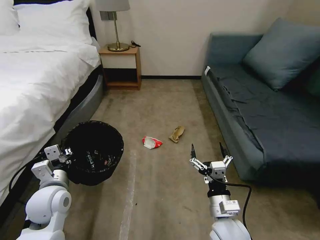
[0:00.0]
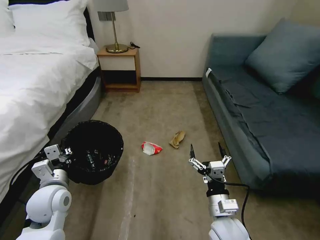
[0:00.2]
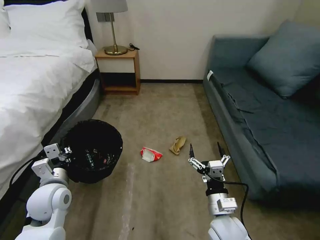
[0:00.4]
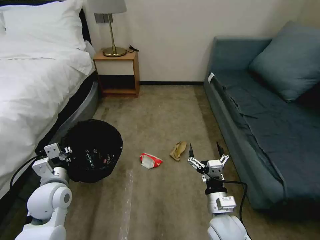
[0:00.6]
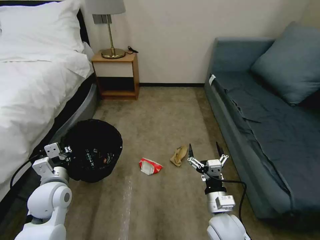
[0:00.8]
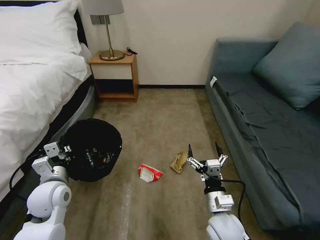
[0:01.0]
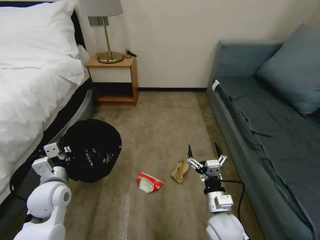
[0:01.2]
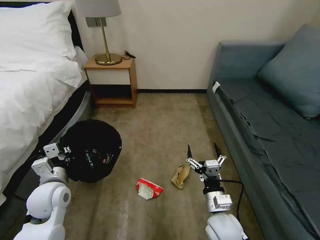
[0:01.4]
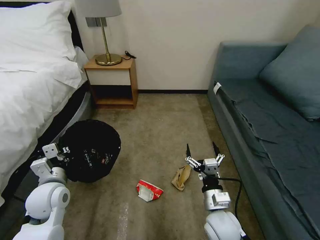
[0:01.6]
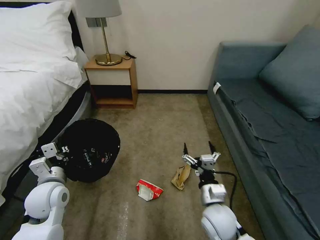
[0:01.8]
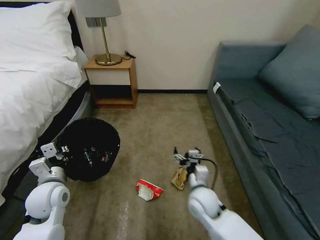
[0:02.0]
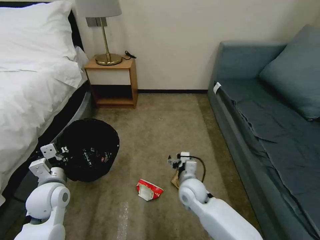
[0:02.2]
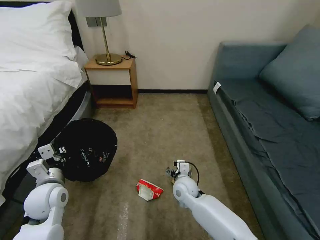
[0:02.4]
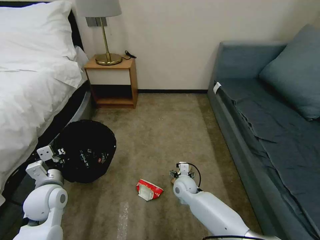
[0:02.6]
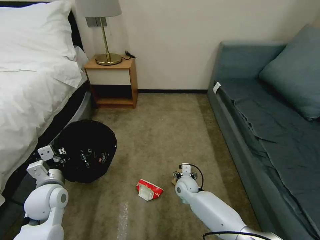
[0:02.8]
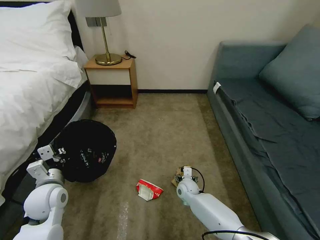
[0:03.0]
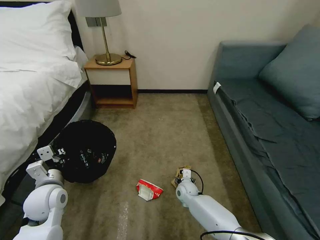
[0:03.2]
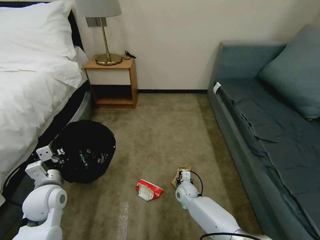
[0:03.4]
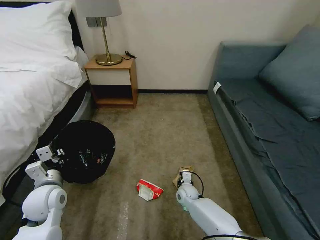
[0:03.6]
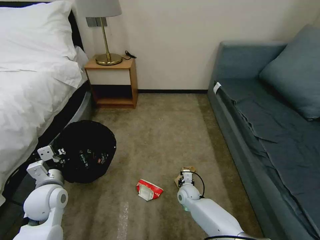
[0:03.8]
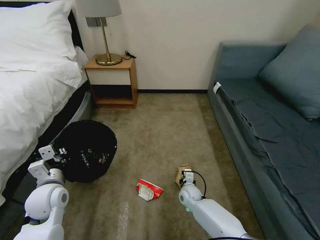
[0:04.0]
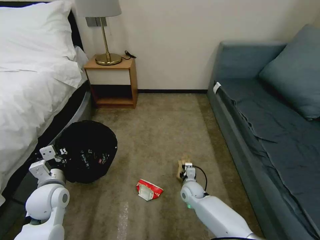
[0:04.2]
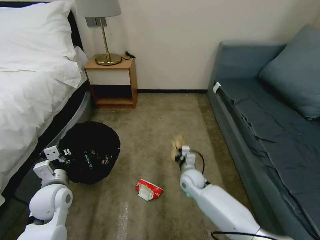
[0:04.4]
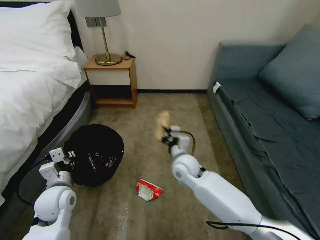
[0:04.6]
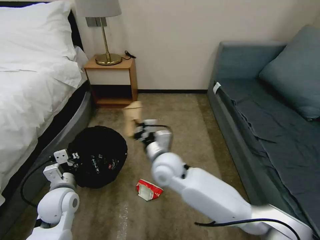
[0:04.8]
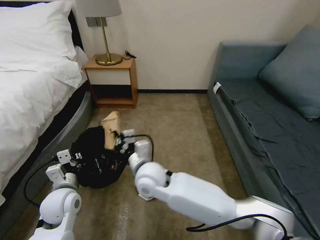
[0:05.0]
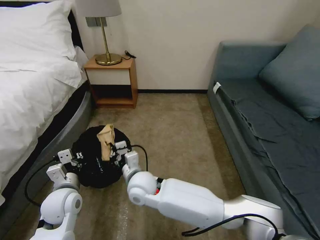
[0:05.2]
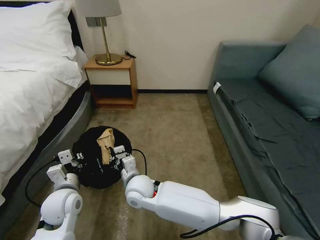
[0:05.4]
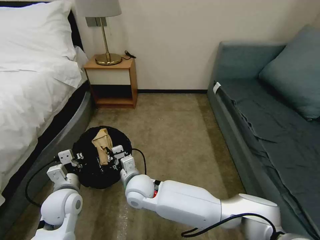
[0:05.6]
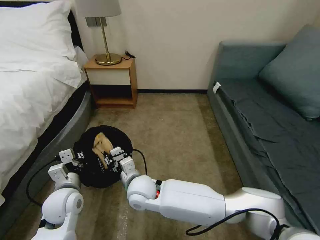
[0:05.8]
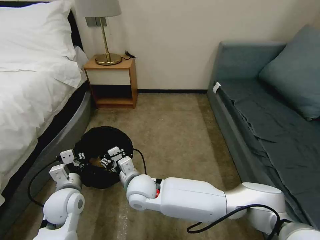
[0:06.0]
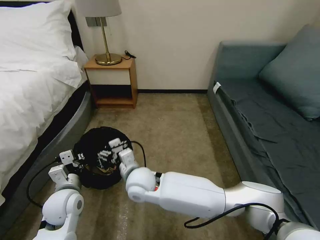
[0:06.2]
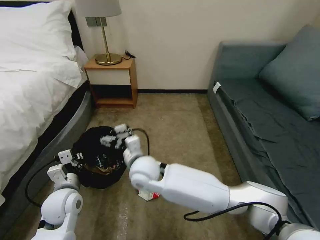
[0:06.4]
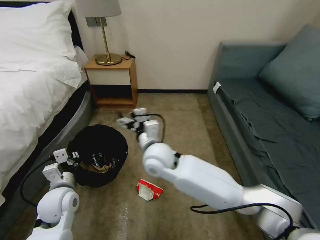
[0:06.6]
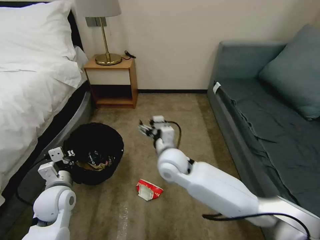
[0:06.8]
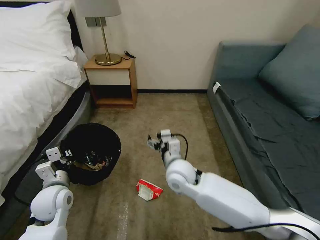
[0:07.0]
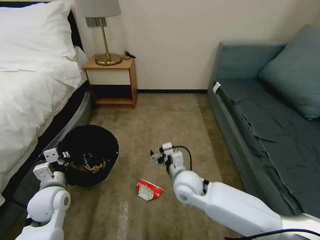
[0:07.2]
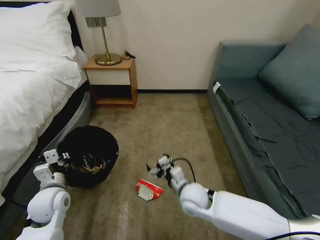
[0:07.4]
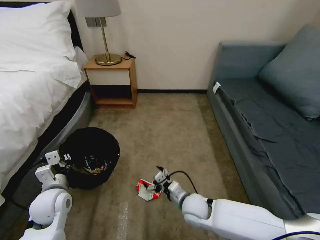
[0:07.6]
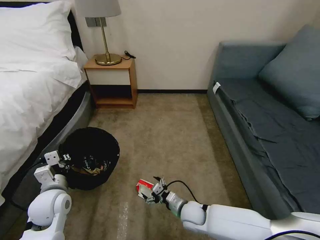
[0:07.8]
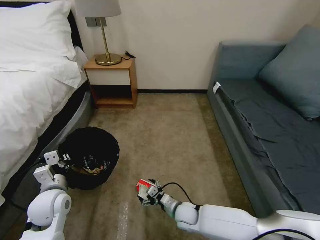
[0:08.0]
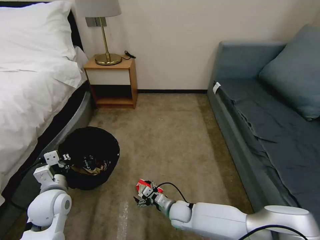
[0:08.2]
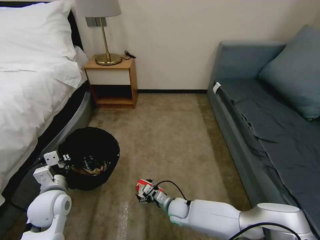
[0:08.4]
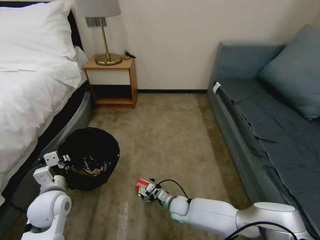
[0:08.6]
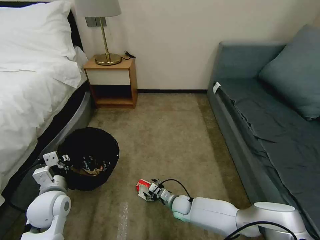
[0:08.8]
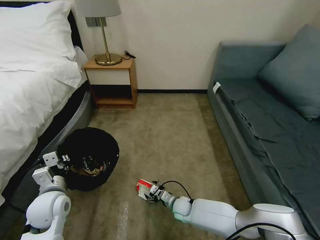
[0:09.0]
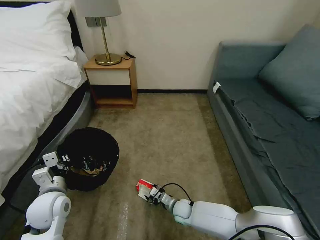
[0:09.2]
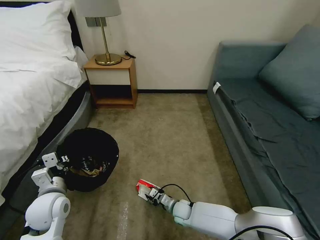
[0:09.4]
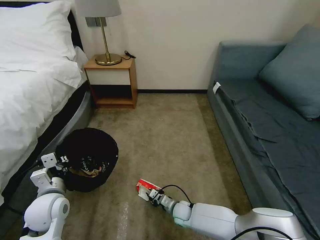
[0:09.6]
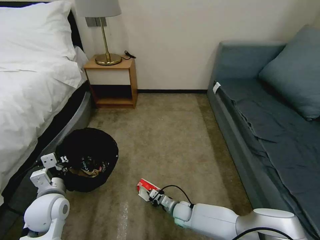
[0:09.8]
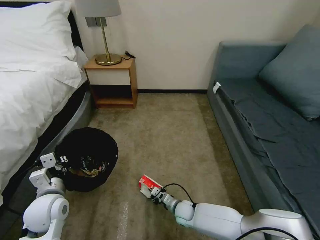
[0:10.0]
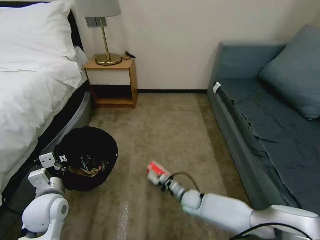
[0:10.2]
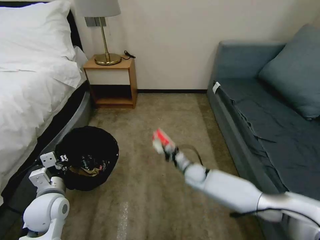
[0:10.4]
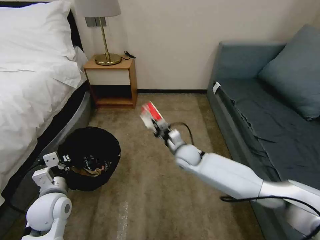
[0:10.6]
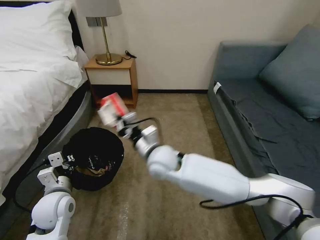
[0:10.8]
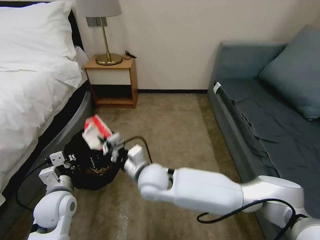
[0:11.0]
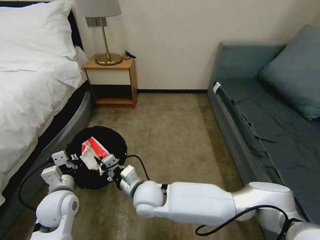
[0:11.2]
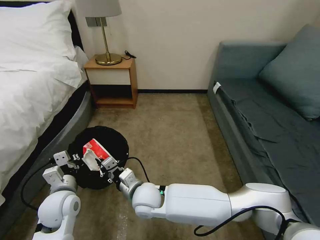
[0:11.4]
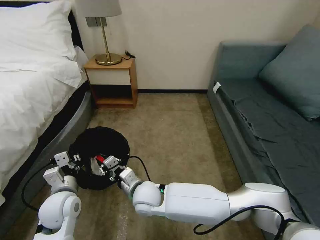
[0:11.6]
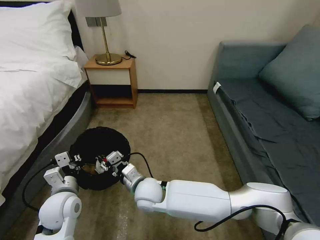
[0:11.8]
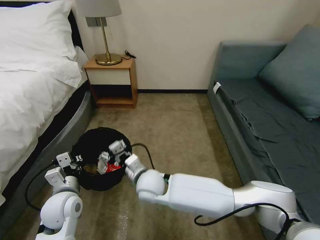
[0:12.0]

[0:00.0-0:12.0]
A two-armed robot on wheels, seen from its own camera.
Task of the whole recording: Pick up the trash bin, then pick up the garbage on the floor and place it into the trash bin.
0:01.6 to 0:03.0: The right gripper goes approximately 25 cm forward and downward.
0:03.0 to 0:04.4: The right gripper moves upward, about 10 cm, and closes up.
0:04.4 to 0:06.0: The right gripper moves to the left, upward and backward, some 25 cm, and opens.
0:06.0 to 0:07.6: The right gripper goes some 20 cm to the right and downward.
0:07.6 to 0:09.0: The right gripper moves downward, some 15 cm.
0:09.0 to 0:10.4: The right gripper travels upward and forward by approximately 15 cm, and closes its fingers.
0:10.4 to 0:12.0: The right gripper goes about 25 cm to the left, backward and upward, and opens up.

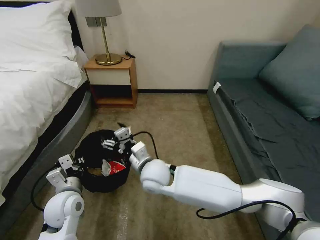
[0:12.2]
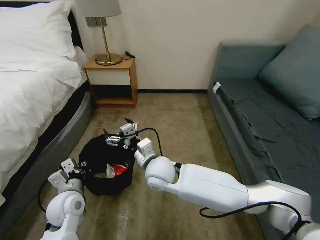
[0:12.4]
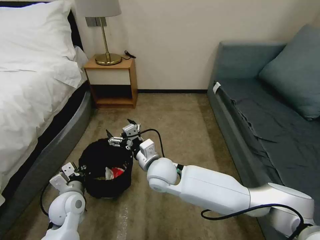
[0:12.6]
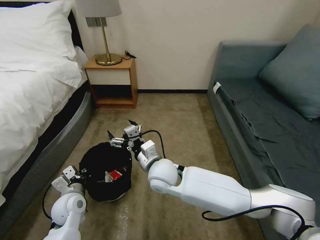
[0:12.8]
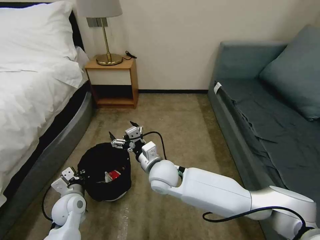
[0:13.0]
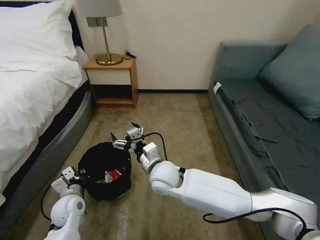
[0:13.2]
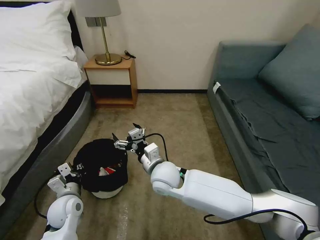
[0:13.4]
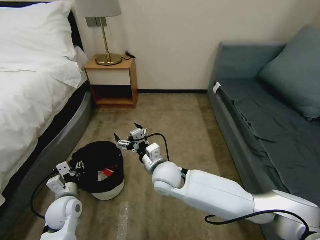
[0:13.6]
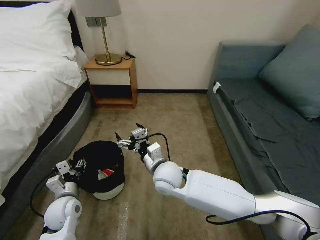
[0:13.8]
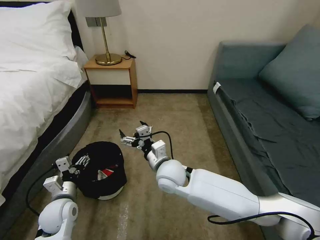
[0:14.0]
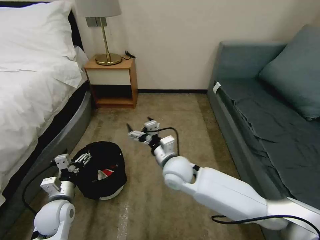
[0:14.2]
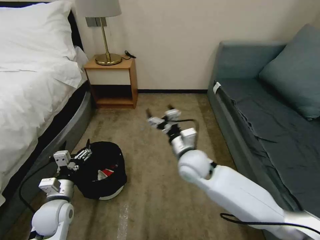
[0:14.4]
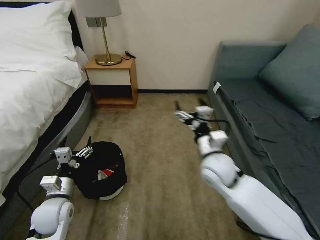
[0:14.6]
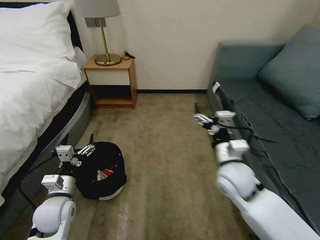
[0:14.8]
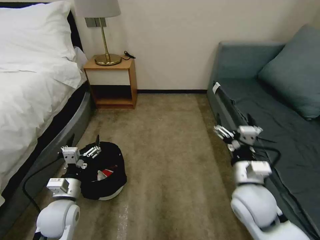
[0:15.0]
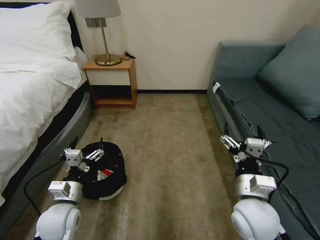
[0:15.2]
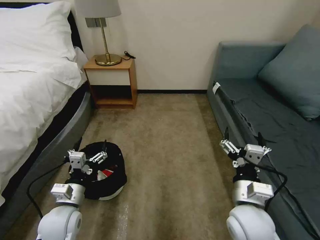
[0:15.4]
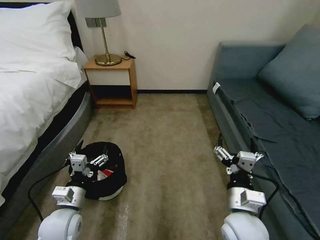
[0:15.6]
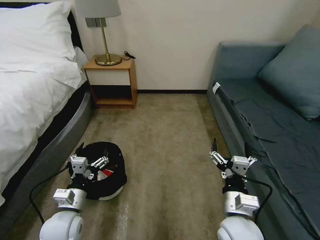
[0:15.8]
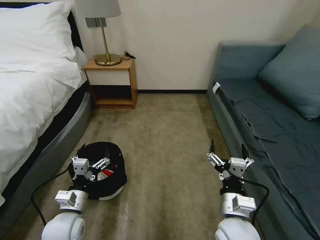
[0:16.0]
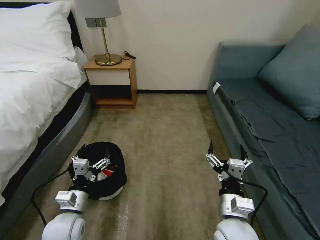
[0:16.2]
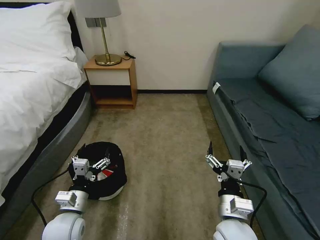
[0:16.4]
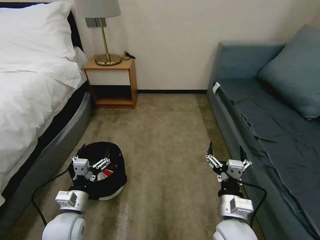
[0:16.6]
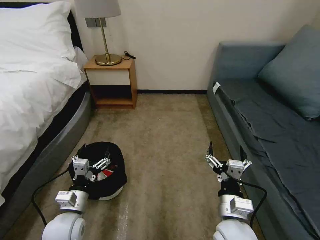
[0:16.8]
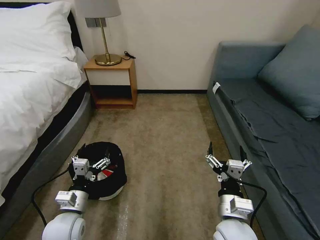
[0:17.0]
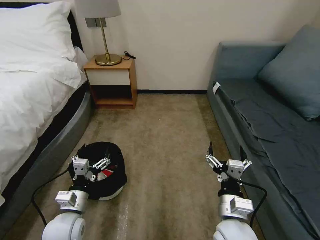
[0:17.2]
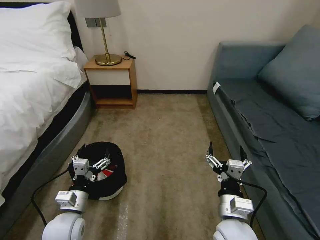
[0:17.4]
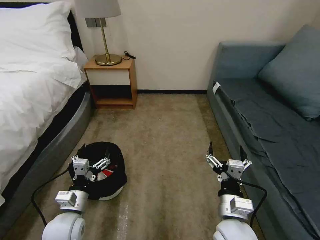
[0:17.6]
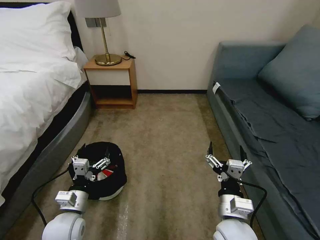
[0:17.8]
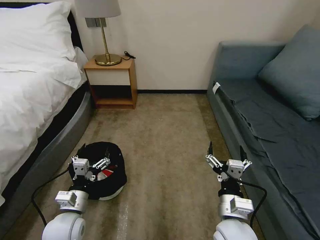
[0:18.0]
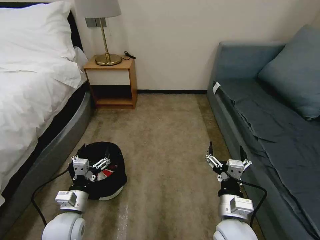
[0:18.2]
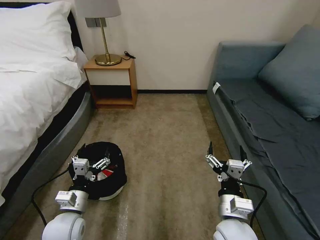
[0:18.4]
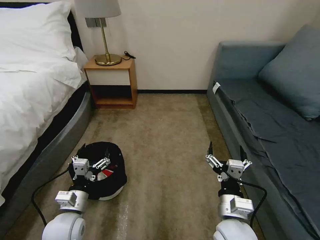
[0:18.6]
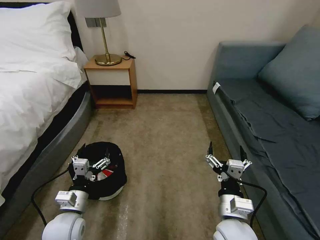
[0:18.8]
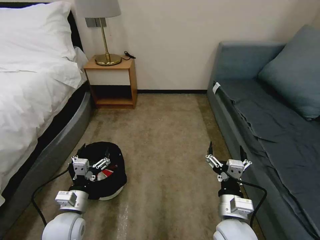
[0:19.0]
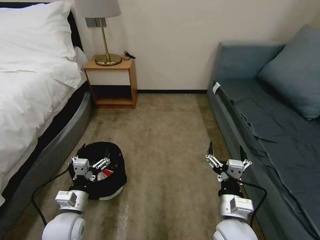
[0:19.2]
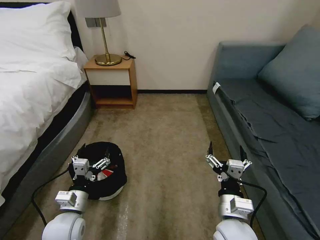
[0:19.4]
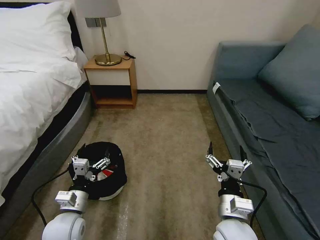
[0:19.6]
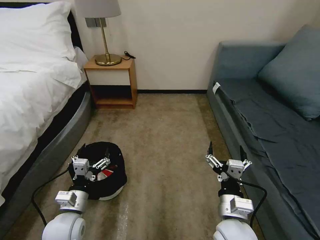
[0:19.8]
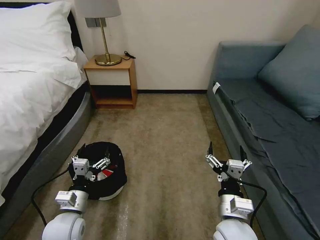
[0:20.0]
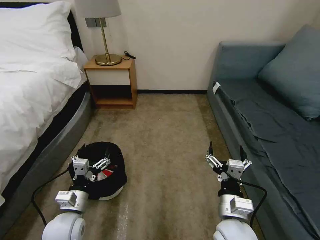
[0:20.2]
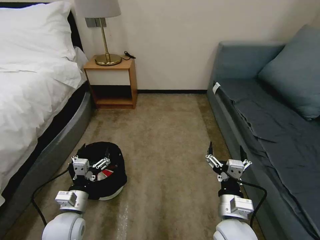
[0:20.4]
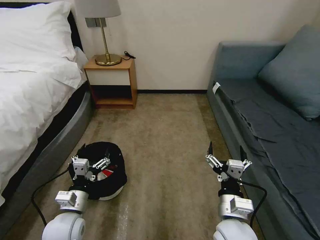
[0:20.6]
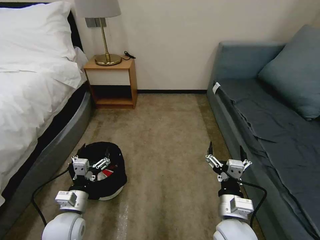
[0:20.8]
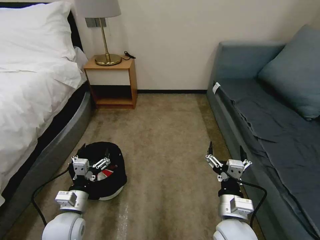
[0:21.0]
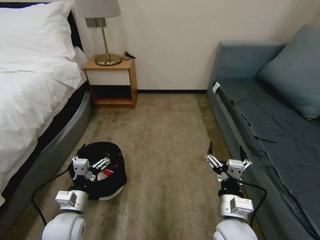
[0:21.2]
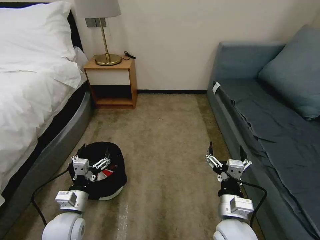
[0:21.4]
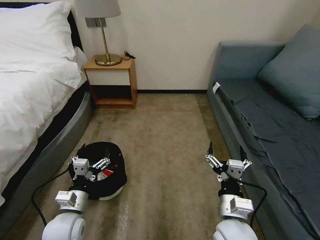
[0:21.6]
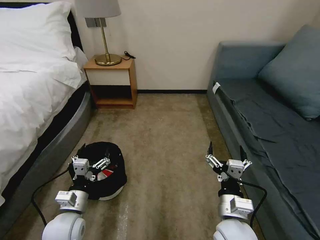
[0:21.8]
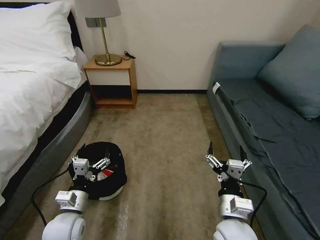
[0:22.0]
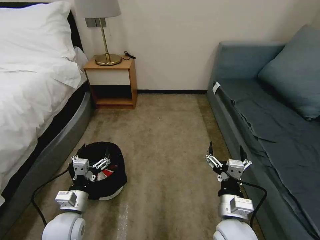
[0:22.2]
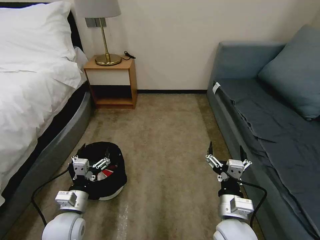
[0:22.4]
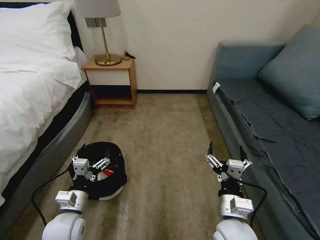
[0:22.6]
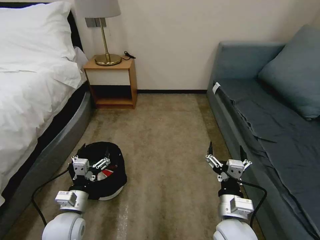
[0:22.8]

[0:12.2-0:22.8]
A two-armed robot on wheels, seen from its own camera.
Task of the whole recording: Pick up the trash bin, then pick up the garbage on the floor and place it into the trash bin.
0:12.2 to 0:13.8: The left gripper goes some 5 cm downward, and opens up.
0:13.8 to 0:15.2: The left gripper changes place by approximately 5 cm, and opens up. The right gripper travels to the right and backward by about 25 cm.
0:15.2 to 0:16.8: The right gripper shifts by approximately 5 cm.
0:16.8 to 0:22.8: The two grippers keep their place.
